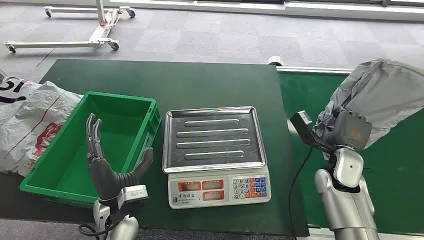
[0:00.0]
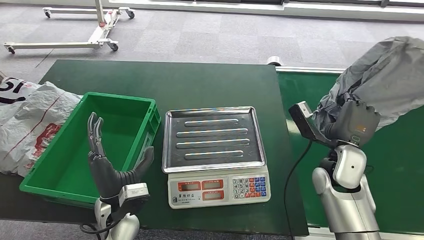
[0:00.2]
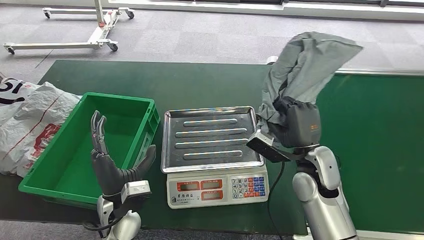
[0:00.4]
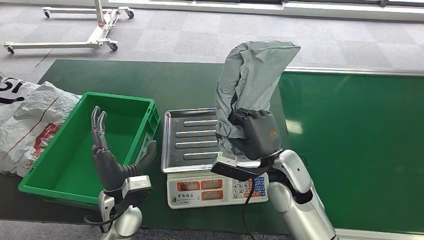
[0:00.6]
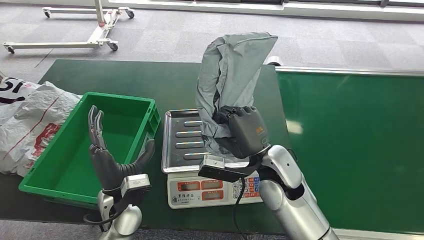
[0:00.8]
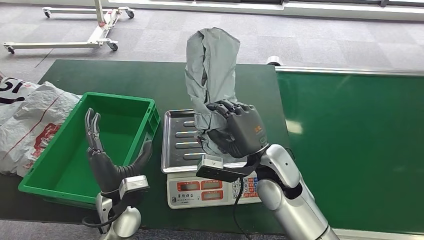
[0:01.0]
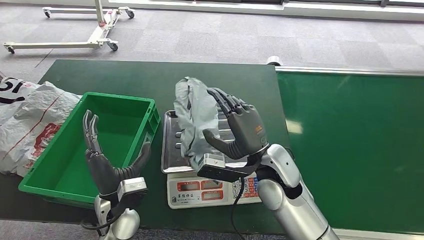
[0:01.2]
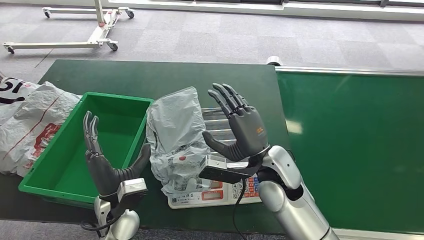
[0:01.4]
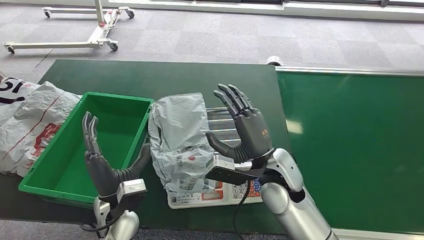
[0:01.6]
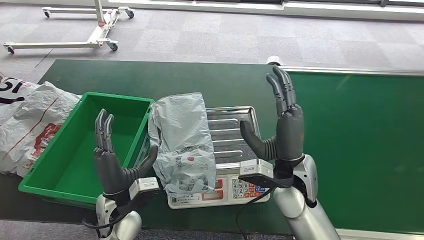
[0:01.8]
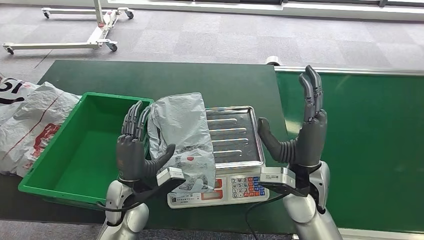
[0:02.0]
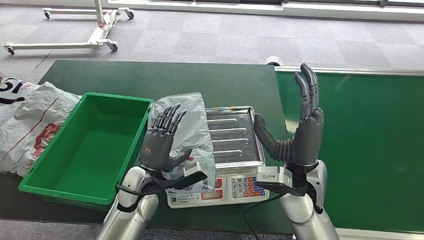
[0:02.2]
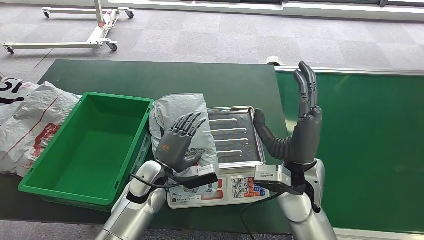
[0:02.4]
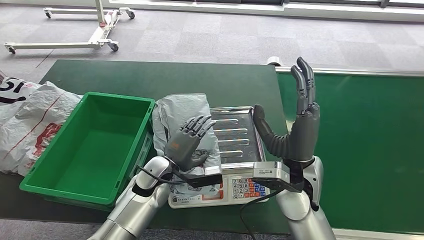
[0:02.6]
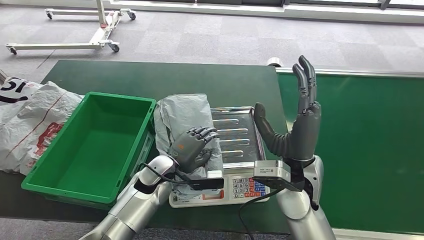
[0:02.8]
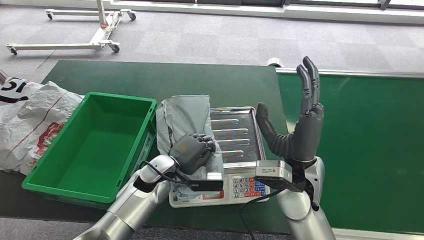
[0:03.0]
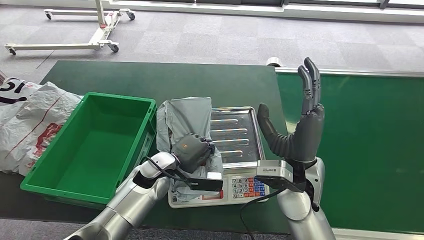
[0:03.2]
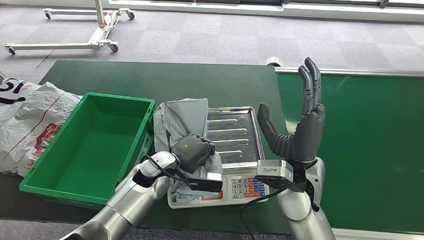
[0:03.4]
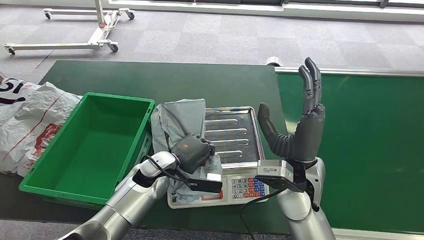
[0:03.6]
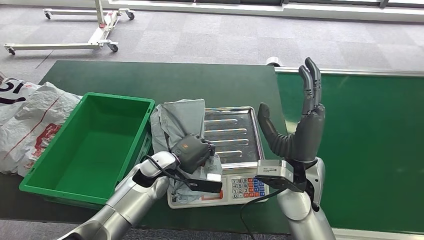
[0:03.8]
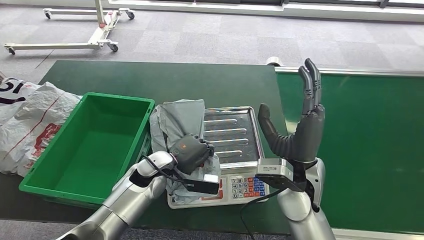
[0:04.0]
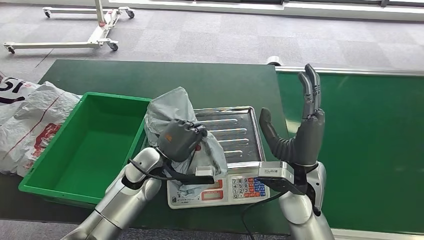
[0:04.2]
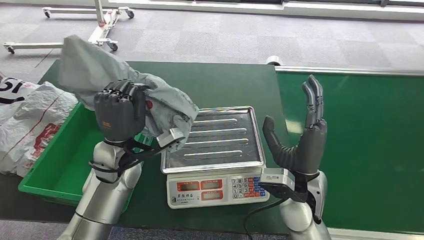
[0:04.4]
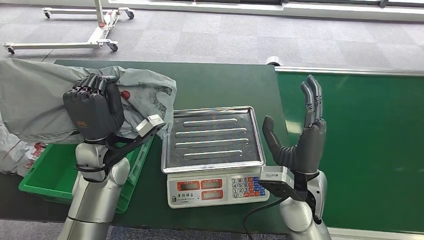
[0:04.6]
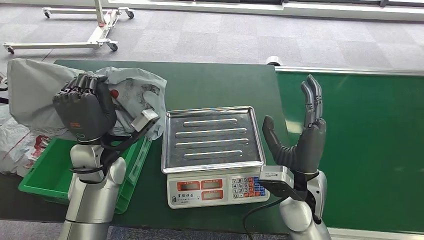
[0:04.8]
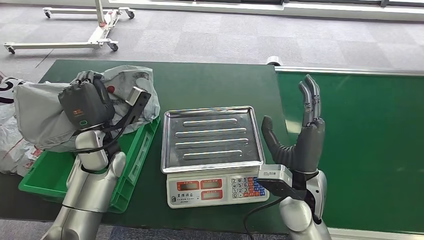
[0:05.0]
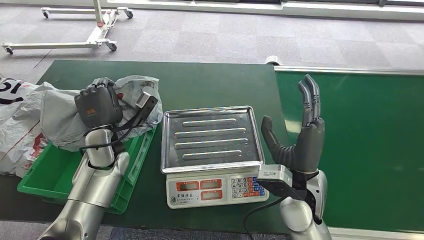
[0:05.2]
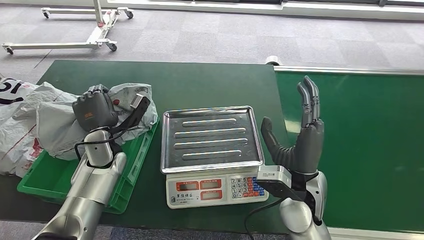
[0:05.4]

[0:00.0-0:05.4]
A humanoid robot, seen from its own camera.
Step, 0:00.0 to 0:00.8: Pick up the package from the conveyor belt.
Step, 0:01.0 to 0:01.4: Place the package onto the inbound machine.
Step, 0:02.2 to 0:04.2: Pick up the package from the inbound machine.
Step, 0:04.4 to 0:05.4: Place the package into the parcel locker.
0:02.8 to 0:04.0: The hands move only a little.
